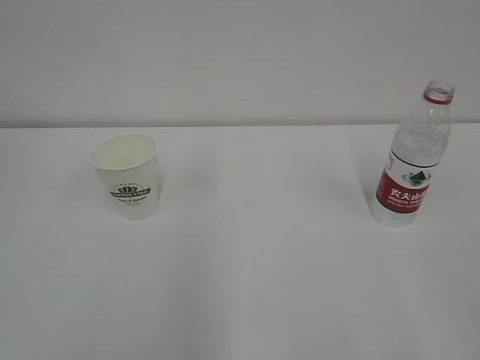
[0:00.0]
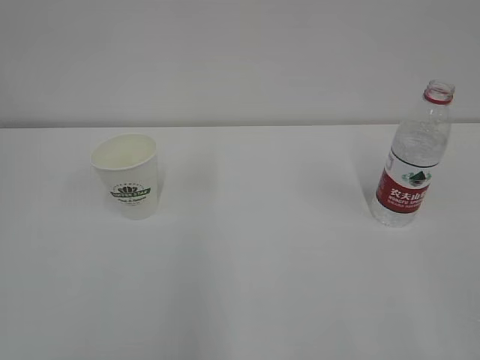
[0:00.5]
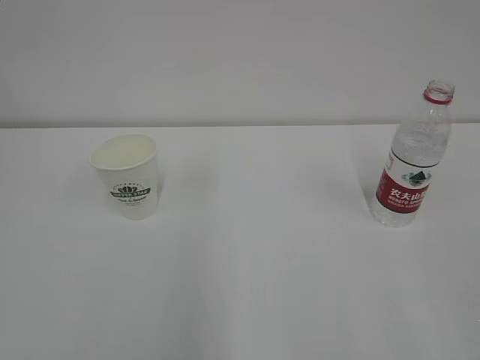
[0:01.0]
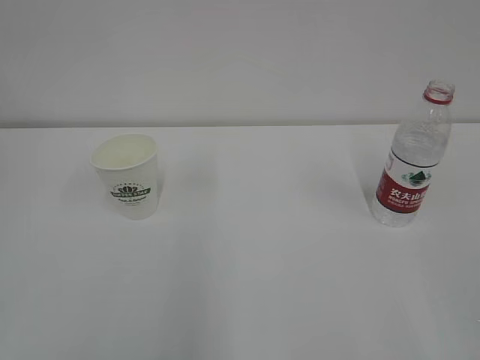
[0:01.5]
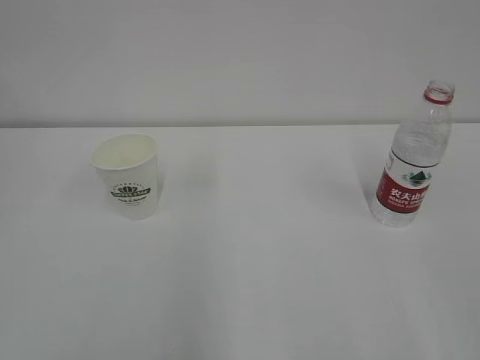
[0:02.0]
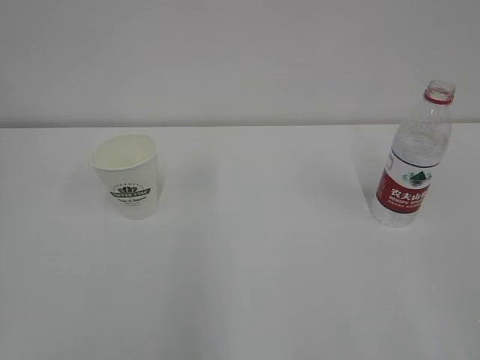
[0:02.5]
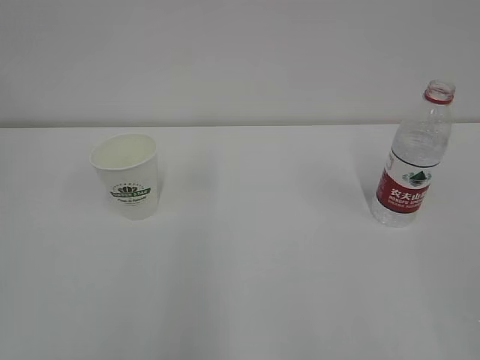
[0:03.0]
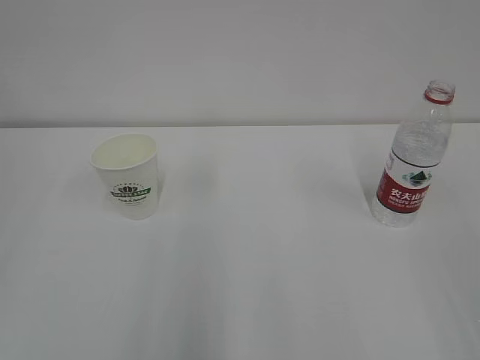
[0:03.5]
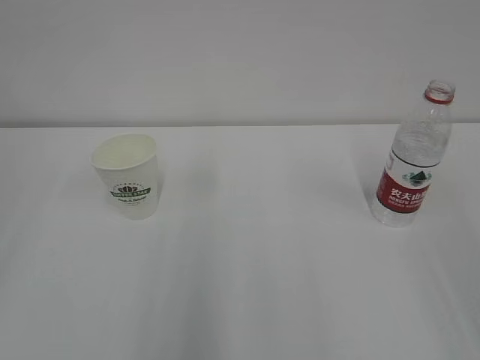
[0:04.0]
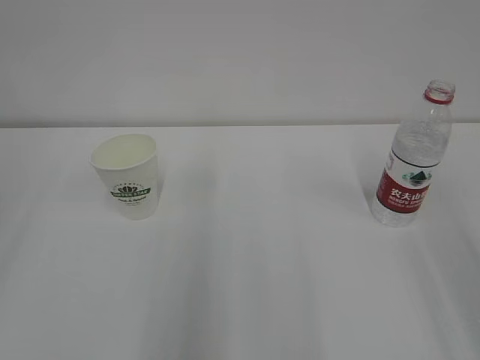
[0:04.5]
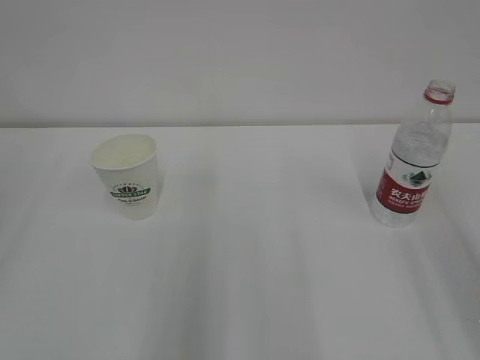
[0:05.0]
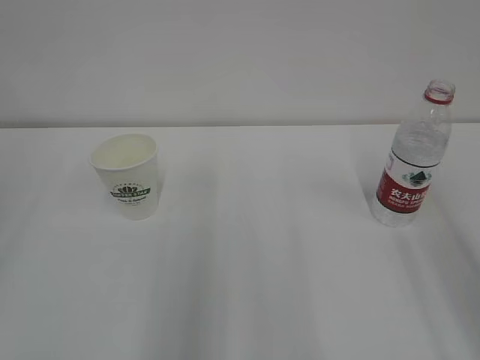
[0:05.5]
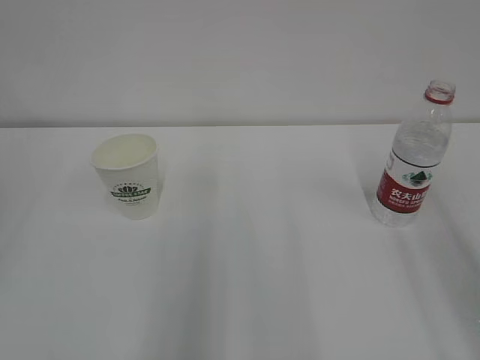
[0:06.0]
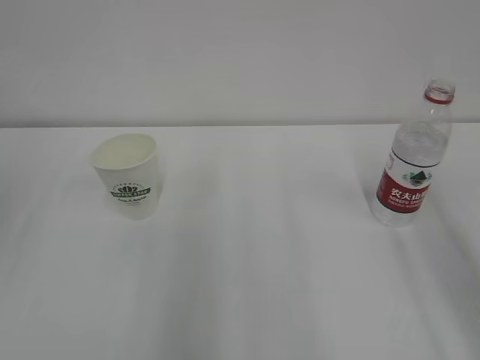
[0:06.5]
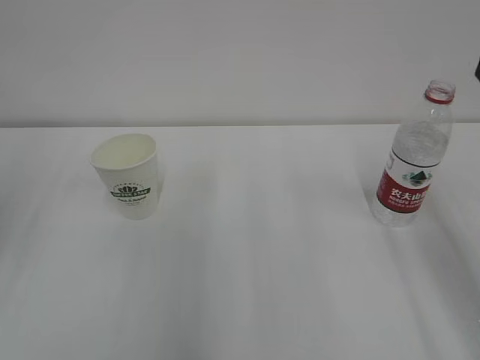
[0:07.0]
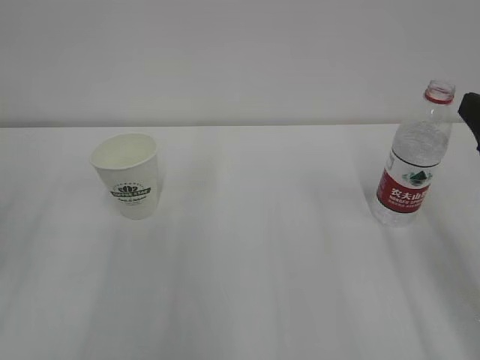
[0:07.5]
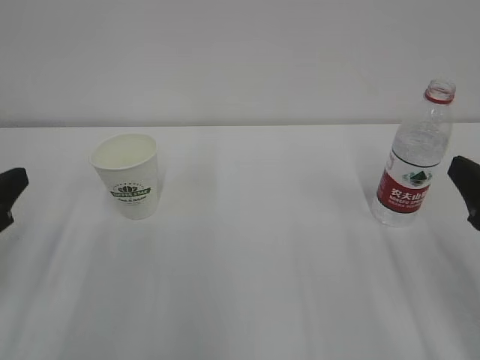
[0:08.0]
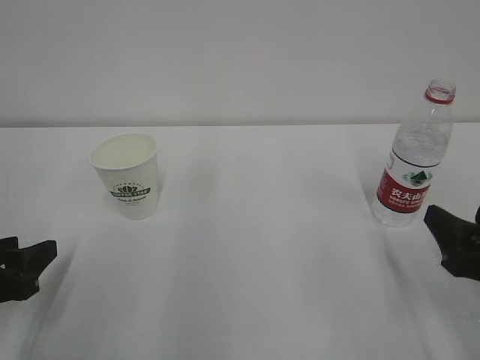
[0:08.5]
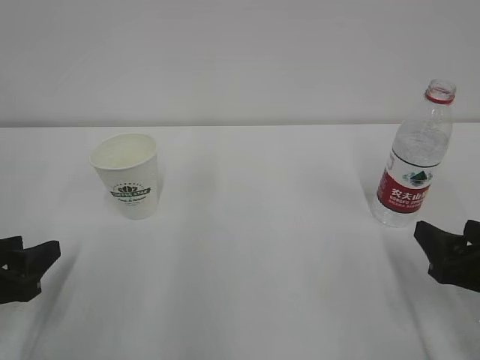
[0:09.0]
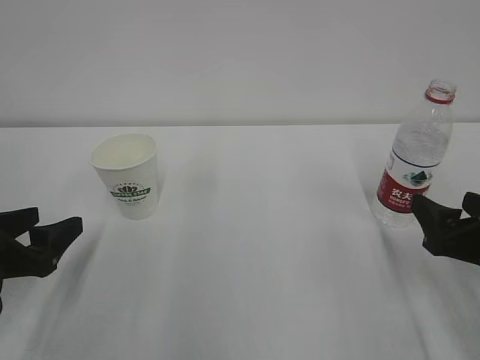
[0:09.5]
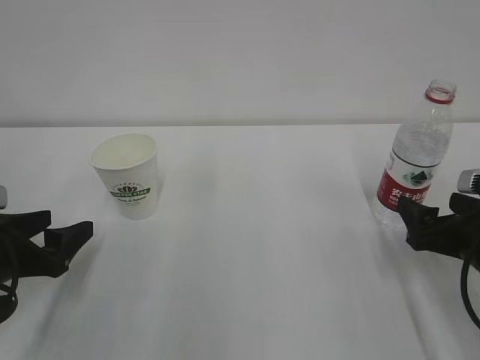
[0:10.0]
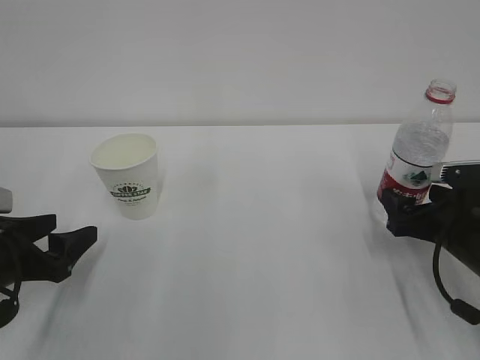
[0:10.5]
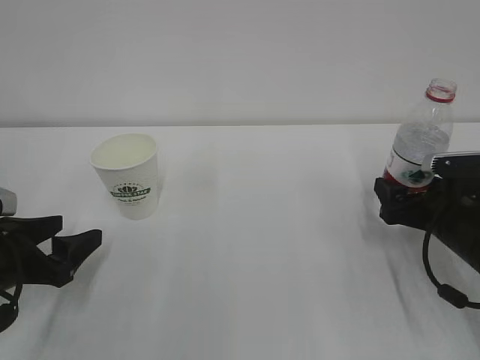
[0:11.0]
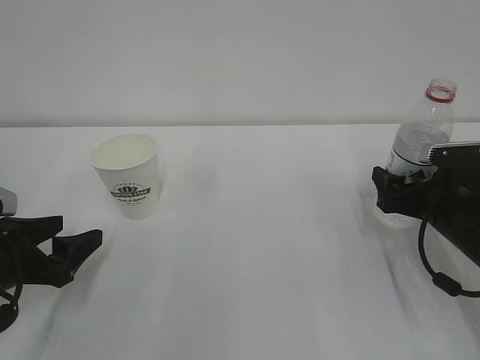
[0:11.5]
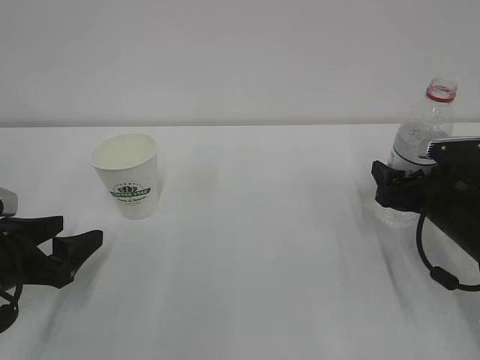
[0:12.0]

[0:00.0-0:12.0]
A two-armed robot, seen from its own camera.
0:06.0 to 0:08.0: The right gripper heads downward, covering roughly 15 cm. The left gripper heads downward and forward, covering about 20 cm.
0:08.0 to 0:10.0: The left gripper goes roughly 5 cm downward, and opens up. The right gripper travels downward and forward by approximately 10 cm.
0:10.0 to 0:12.0: The right gripper moves forward, about 10 cm.

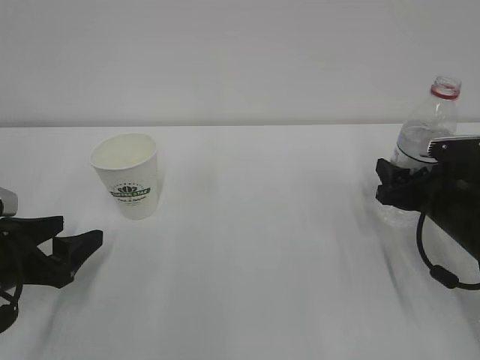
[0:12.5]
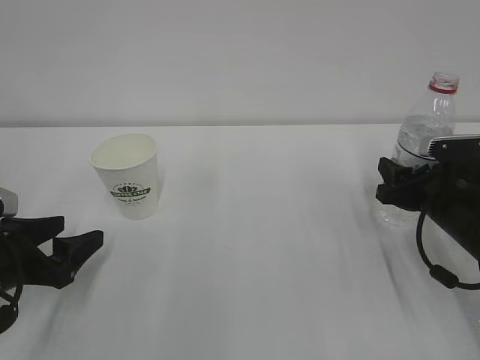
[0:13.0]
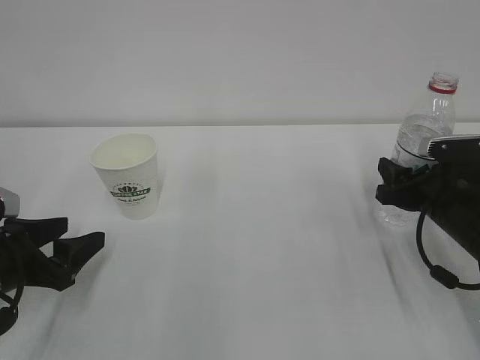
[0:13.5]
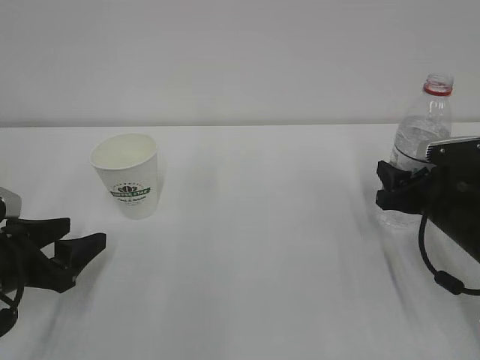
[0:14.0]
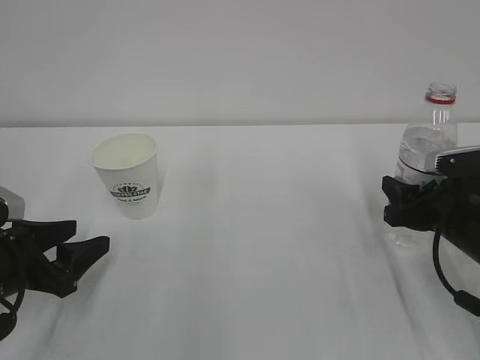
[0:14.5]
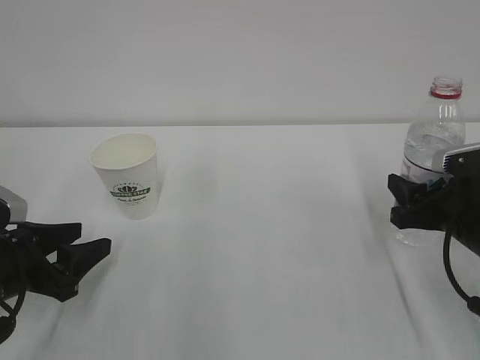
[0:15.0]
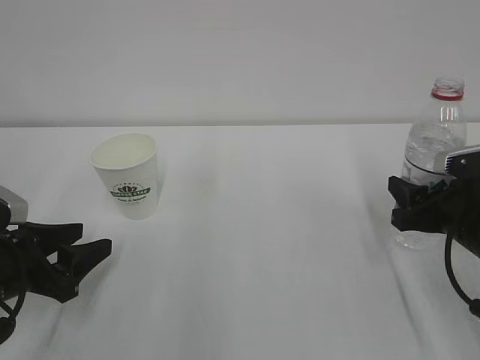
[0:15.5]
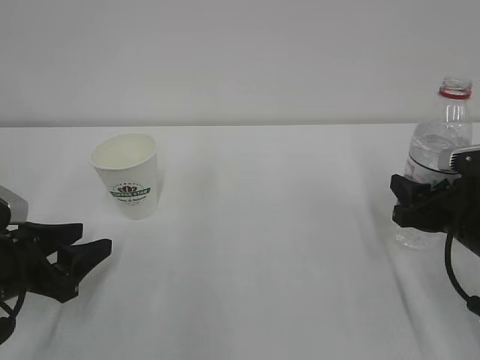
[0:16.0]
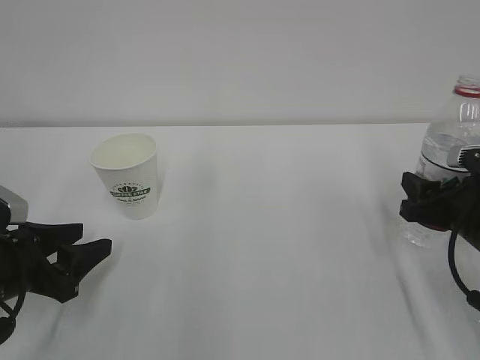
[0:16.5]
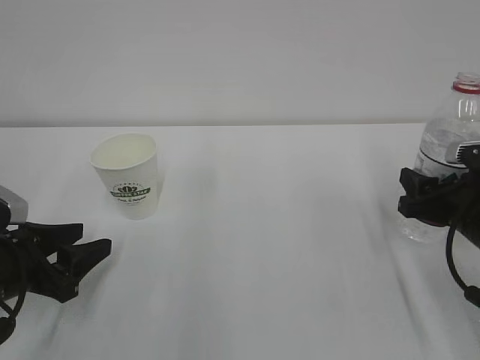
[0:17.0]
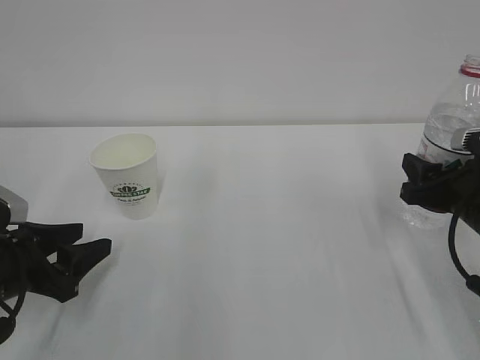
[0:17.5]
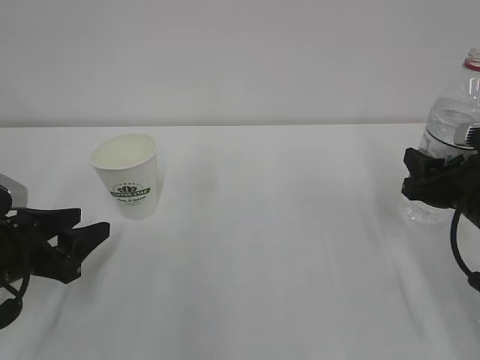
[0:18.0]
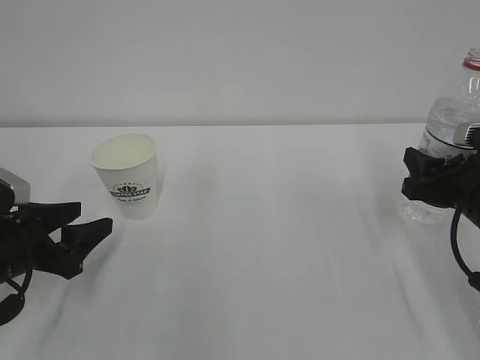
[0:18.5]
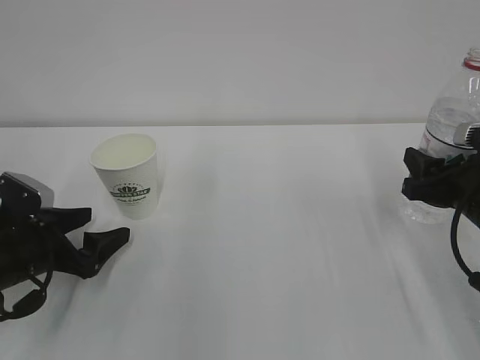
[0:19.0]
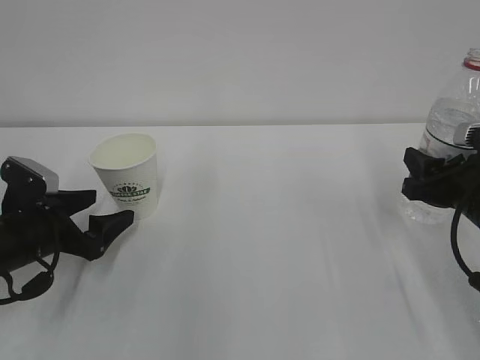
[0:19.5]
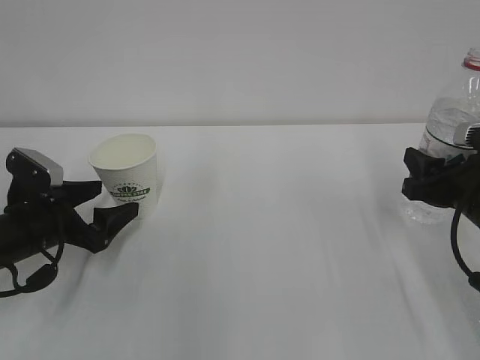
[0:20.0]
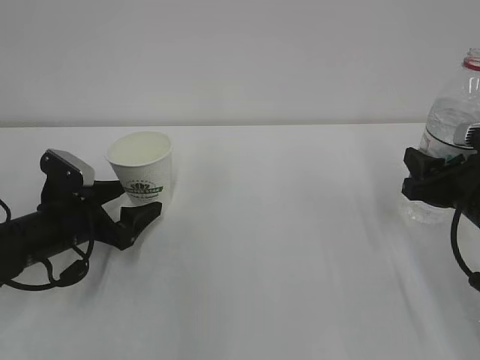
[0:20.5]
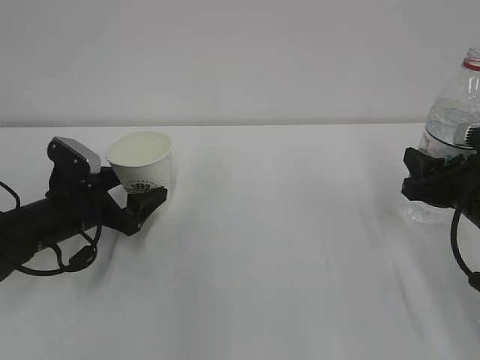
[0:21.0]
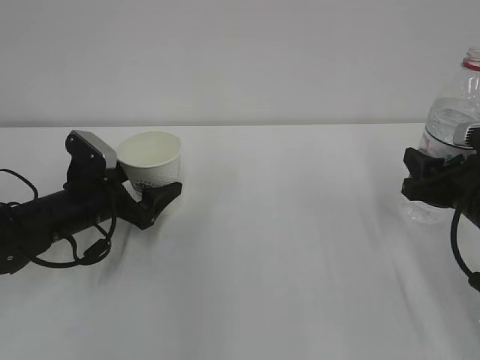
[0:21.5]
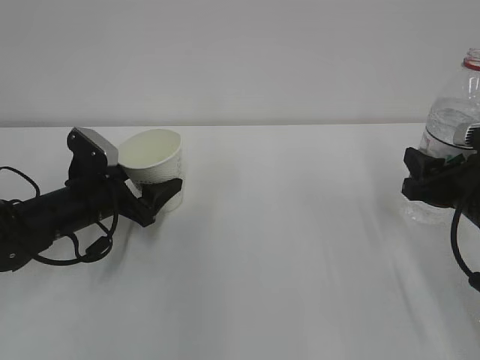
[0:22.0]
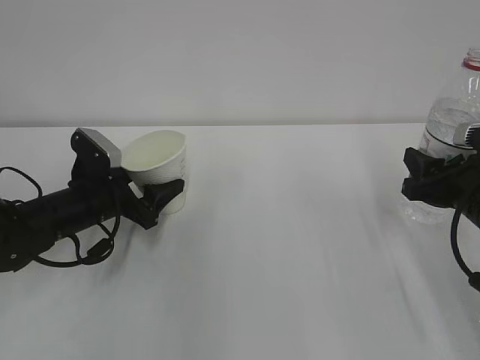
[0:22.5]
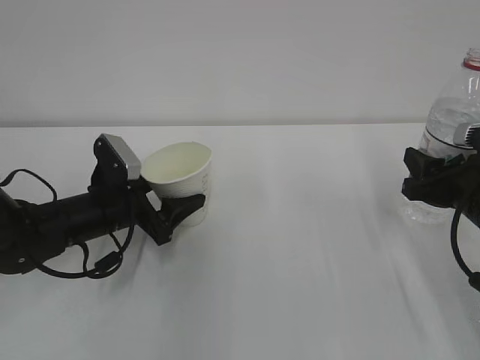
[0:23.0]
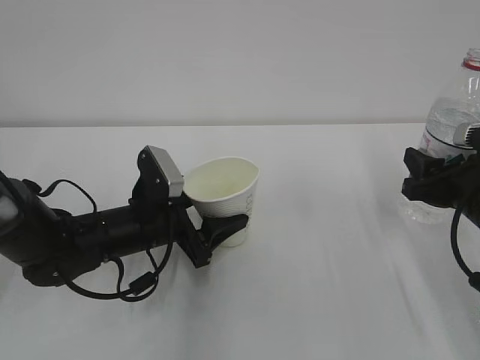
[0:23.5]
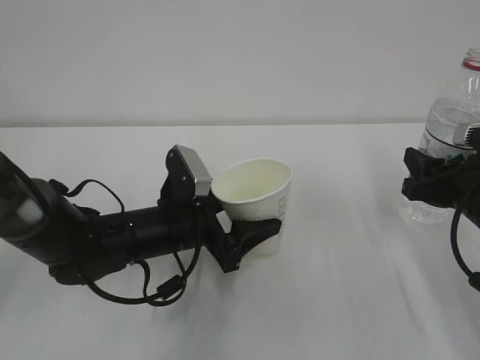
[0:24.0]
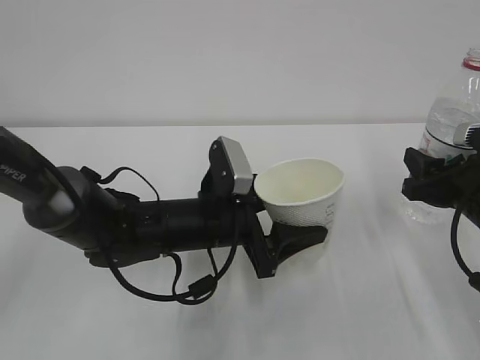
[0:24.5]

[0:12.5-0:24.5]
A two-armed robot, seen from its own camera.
0:12.5 to 0:18.5: The grippers make only small movements.
0:18.5 to 0:20.5: The left gripper moves forward, some 5 cm, and opens.
0:20.5 to 0:22.5: The left gripper closes its fingers.
0:22.5 to 0:24.5: The left gripper moves to the right, roughly 15 cm.

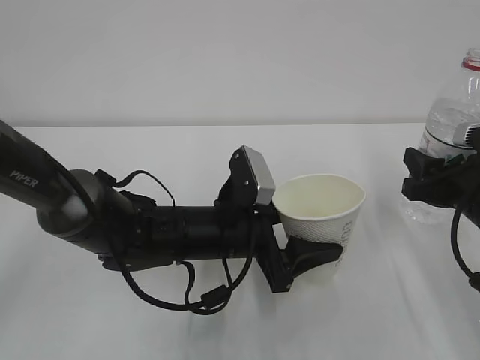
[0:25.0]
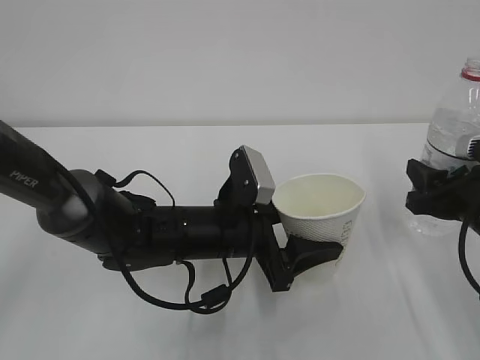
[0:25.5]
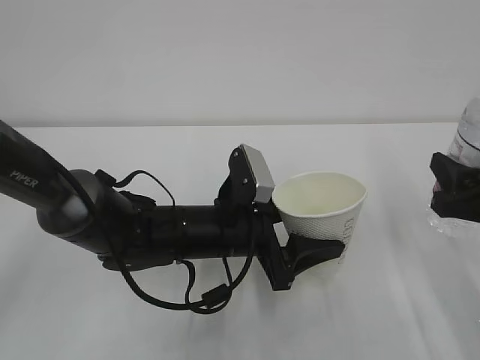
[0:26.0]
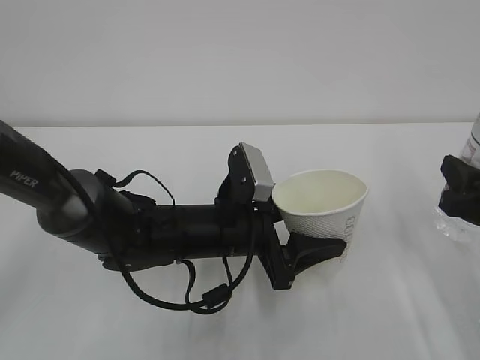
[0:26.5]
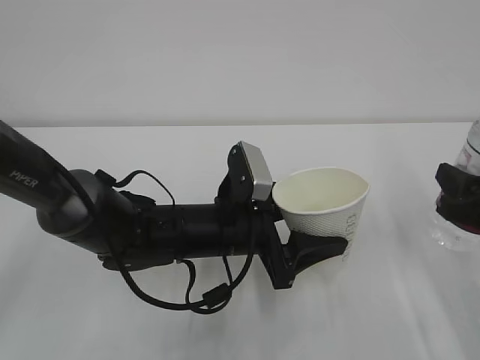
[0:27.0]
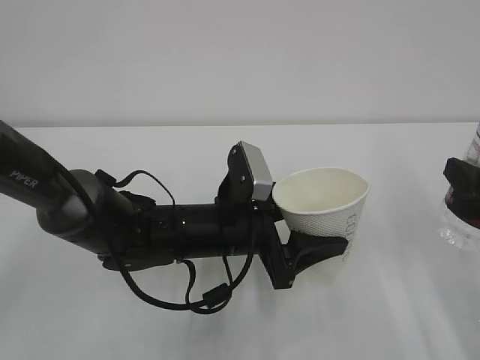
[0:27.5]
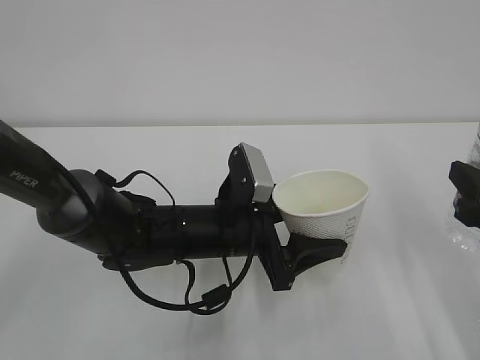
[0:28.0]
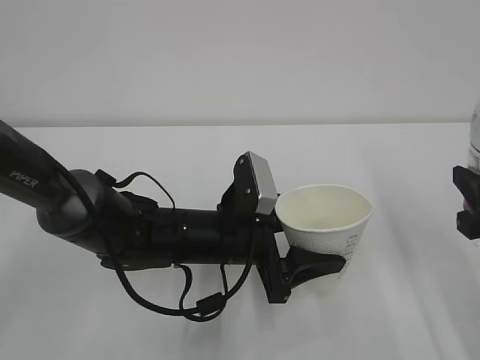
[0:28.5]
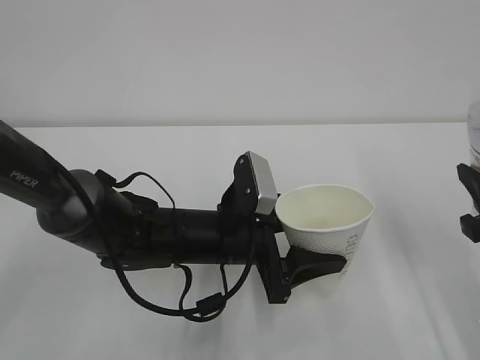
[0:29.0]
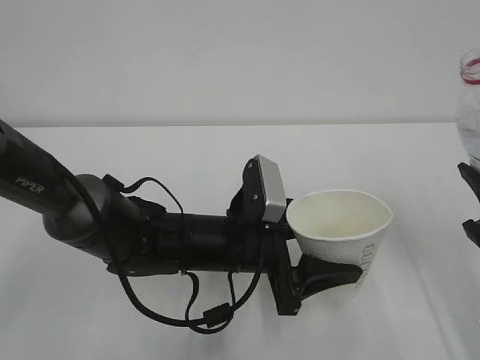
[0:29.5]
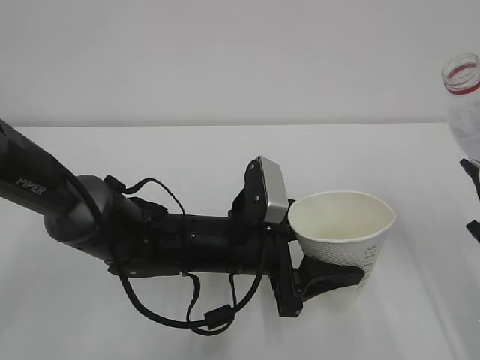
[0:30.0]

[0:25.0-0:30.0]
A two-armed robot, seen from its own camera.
0:25.0 to 0:27.5: The right gripper is displaced backward by some 5 cm.
